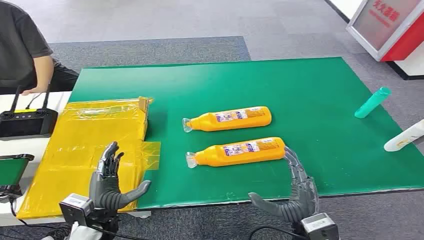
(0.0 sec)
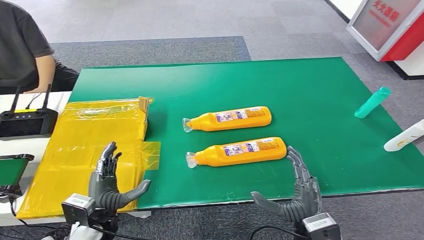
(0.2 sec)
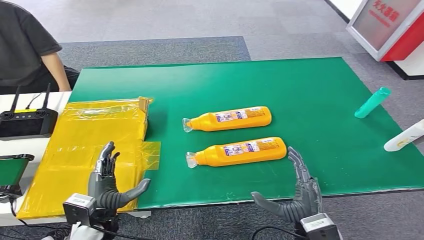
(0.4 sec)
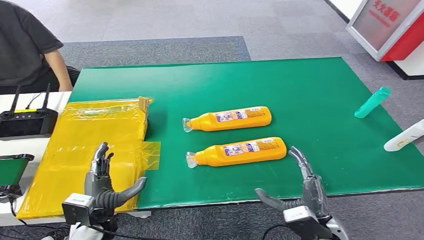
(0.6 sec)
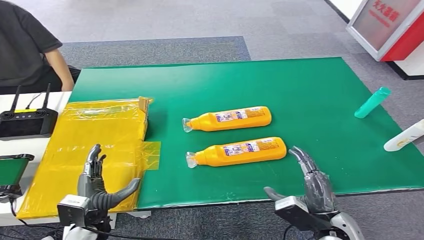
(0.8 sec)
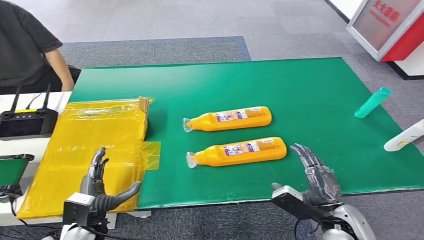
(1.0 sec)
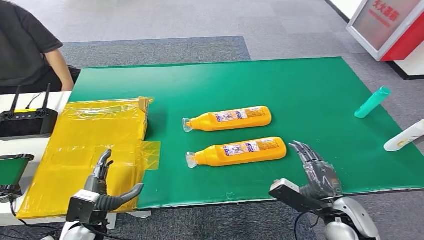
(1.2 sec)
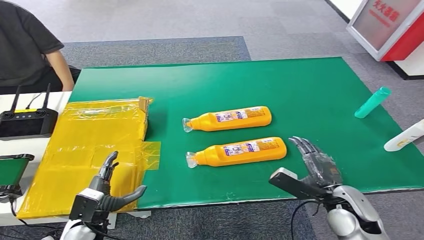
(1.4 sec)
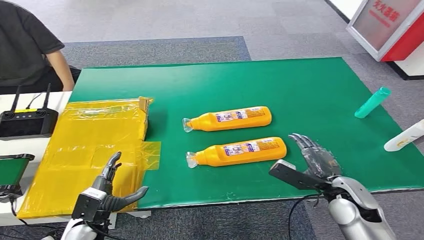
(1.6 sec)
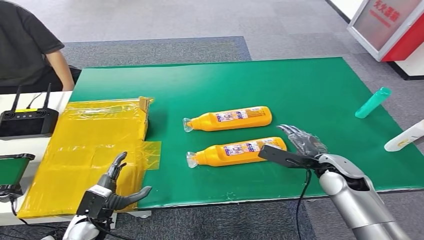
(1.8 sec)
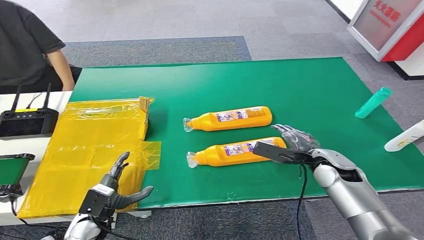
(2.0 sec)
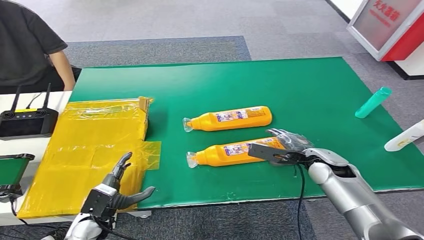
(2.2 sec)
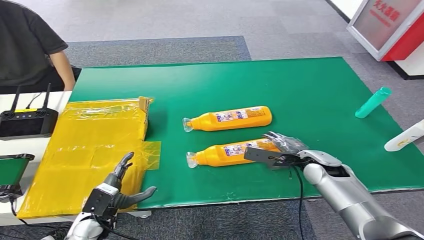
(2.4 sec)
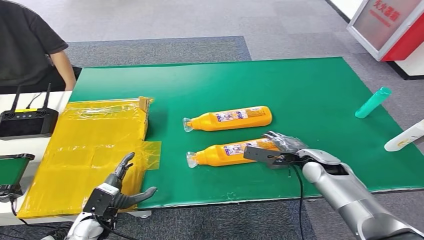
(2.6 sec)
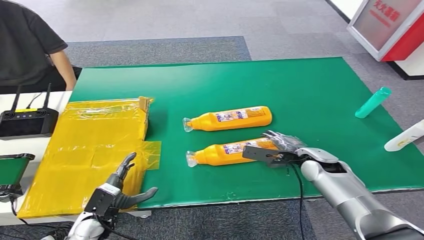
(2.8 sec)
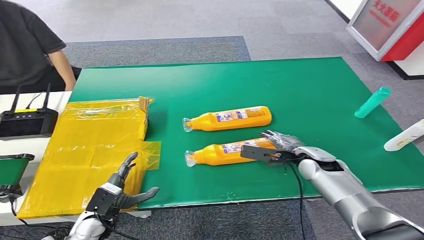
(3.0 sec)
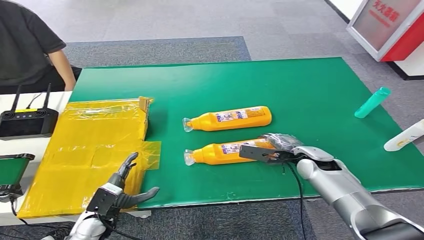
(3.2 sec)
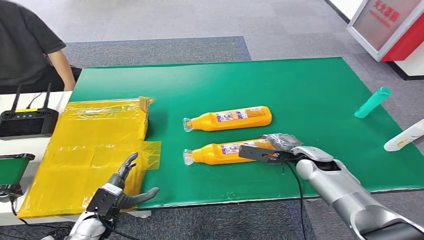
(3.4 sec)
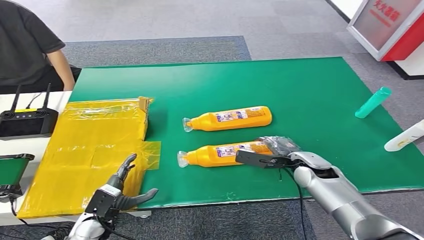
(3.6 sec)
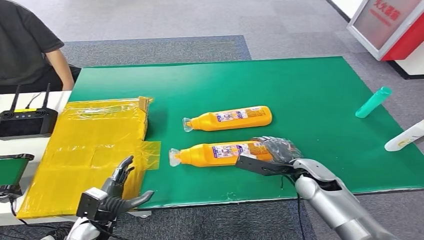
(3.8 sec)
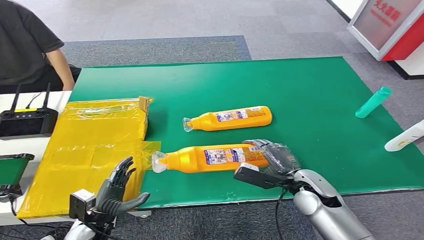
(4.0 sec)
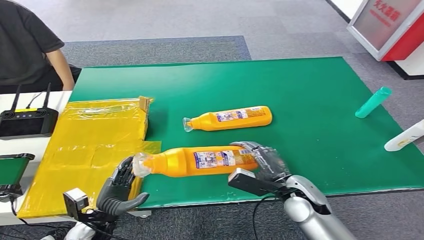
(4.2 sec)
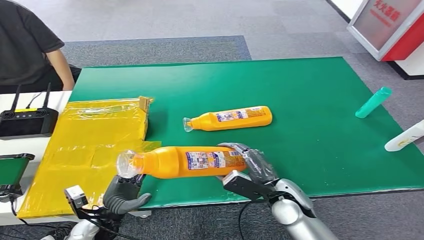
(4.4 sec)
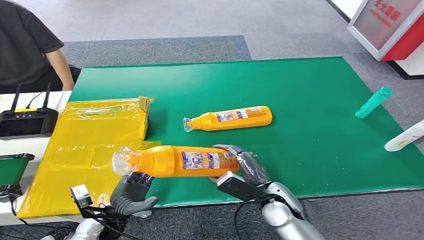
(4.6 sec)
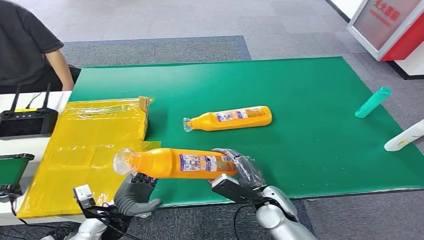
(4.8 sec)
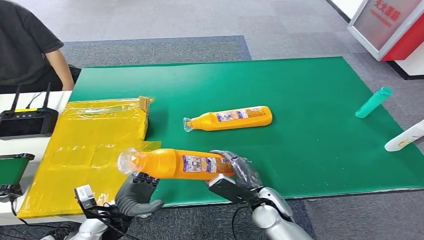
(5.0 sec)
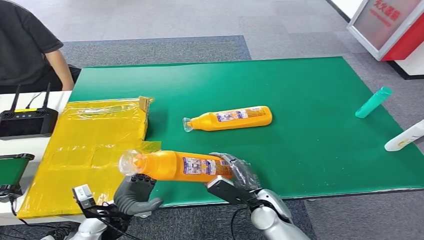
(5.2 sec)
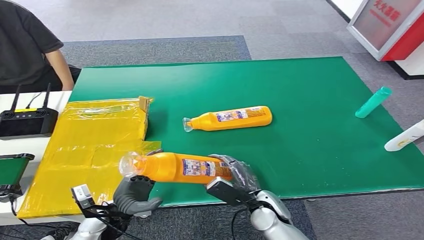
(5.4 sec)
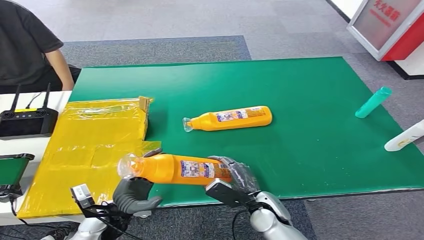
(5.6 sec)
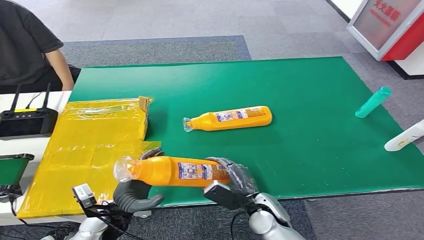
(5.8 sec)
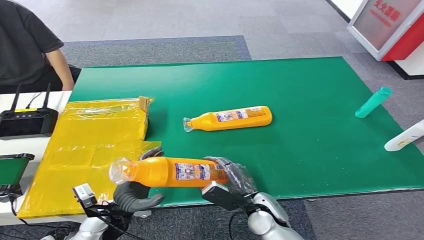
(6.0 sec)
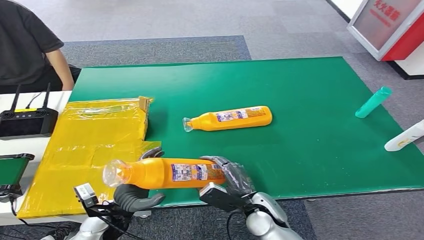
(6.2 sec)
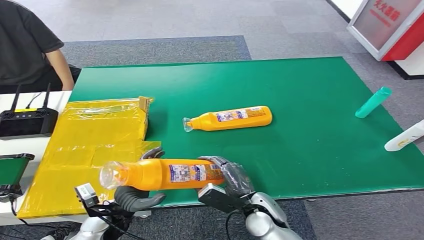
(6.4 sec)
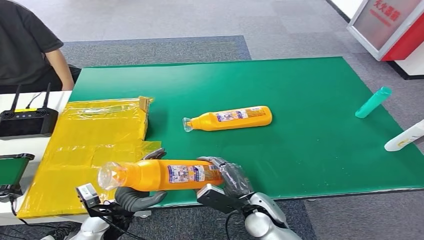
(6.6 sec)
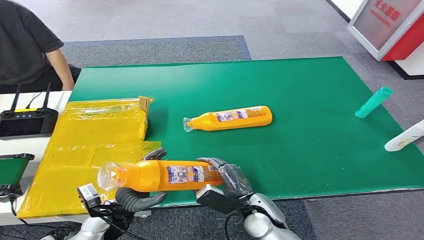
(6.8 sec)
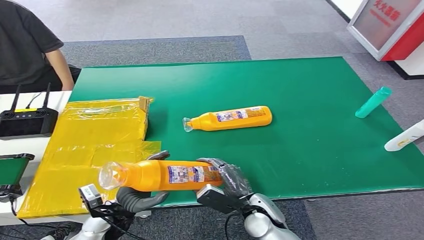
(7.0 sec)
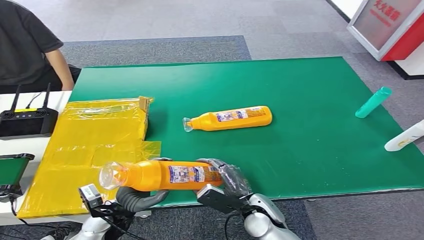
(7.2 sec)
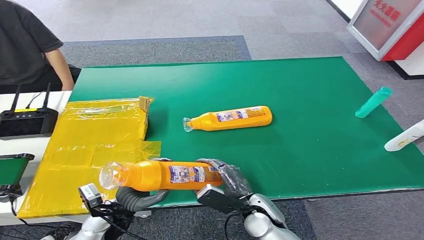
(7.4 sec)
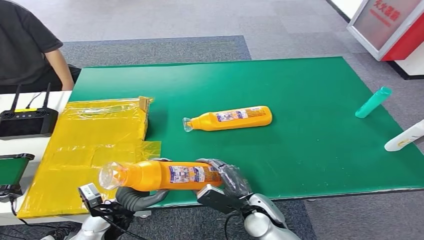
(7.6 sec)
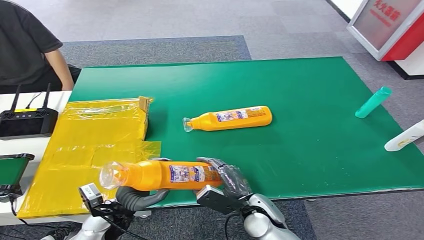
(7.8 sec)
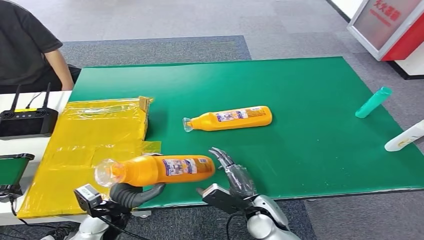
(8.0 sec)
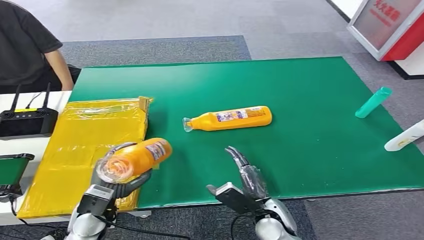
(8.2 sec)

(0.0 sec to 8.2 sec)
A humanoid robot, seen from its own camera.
Step, 0.0 sec - 4.8 sec: Pick up the bottle from the table.
Step, 5.0 sec - 8.0 sec: Turn the bottle to the front side.
1.6 sec - 3.2 sec: The right hand travels forward by roughly 10 cm.
3.2 sec - 5.0 sec: The right hand travels backward and to the left by roughly 15 cm.
5.0 sec - 6.6 sec: There are only small adjustments of the hands.
